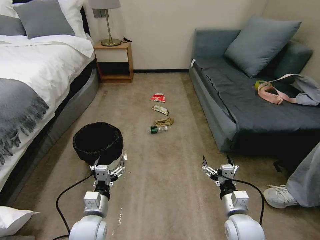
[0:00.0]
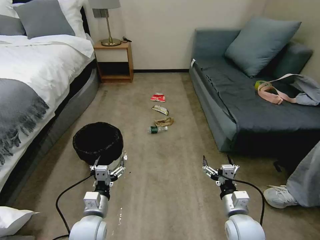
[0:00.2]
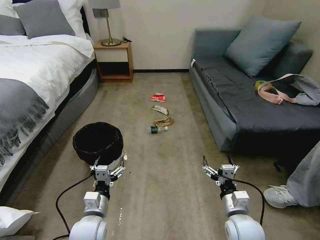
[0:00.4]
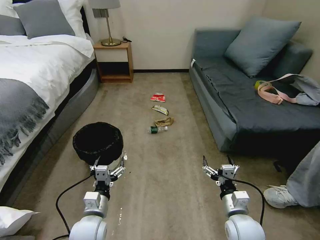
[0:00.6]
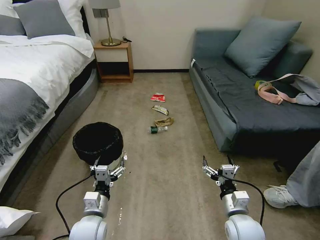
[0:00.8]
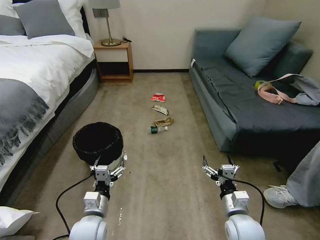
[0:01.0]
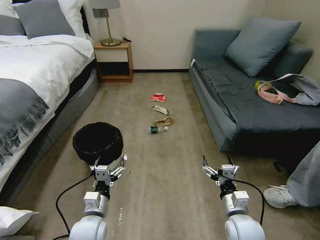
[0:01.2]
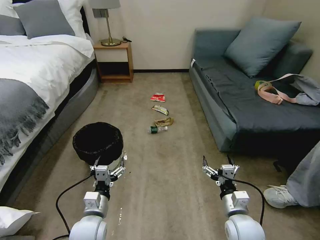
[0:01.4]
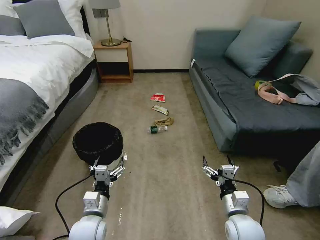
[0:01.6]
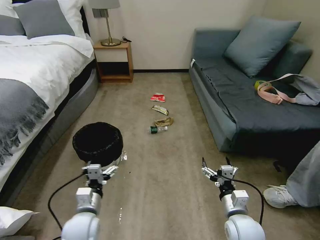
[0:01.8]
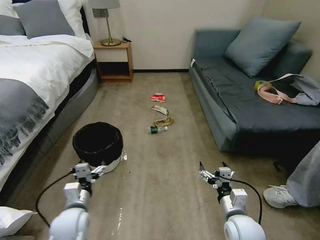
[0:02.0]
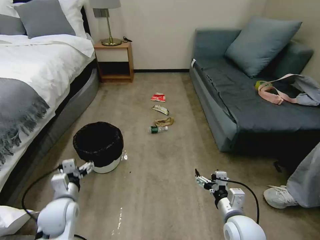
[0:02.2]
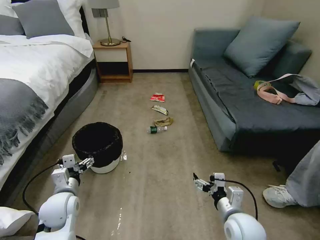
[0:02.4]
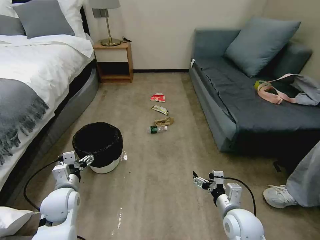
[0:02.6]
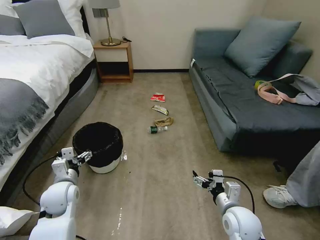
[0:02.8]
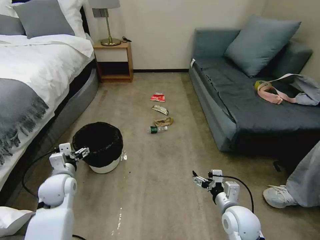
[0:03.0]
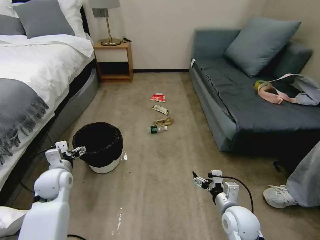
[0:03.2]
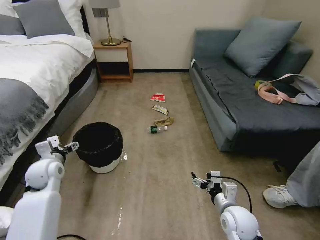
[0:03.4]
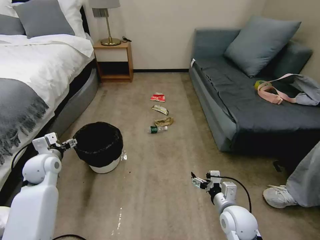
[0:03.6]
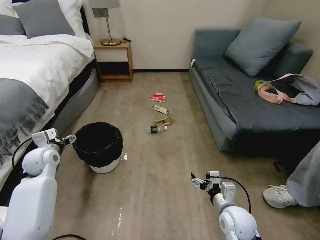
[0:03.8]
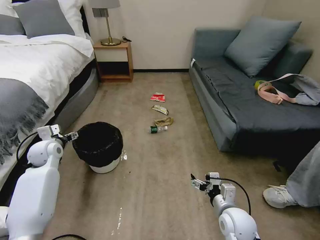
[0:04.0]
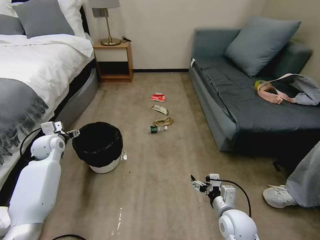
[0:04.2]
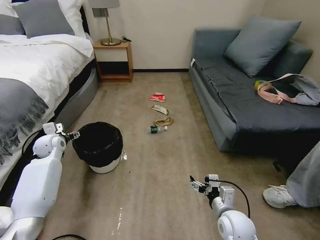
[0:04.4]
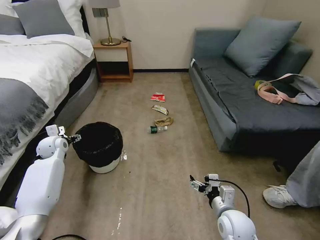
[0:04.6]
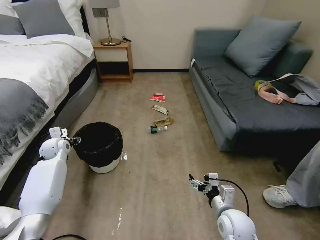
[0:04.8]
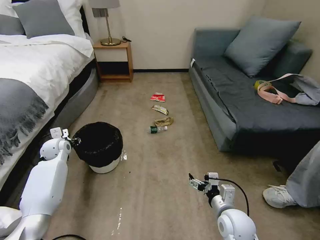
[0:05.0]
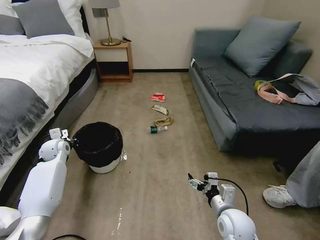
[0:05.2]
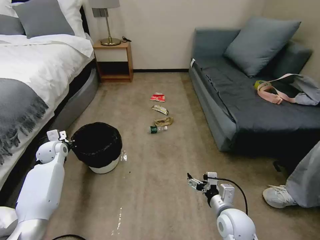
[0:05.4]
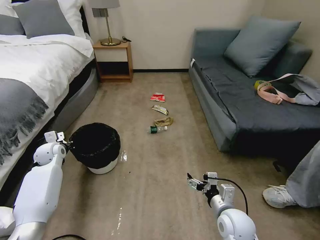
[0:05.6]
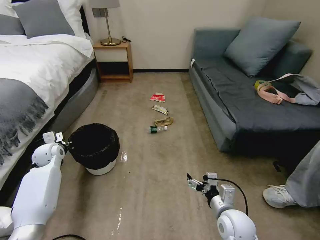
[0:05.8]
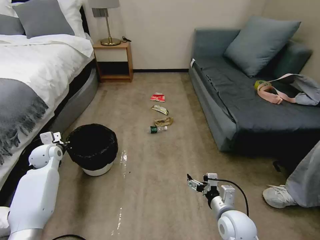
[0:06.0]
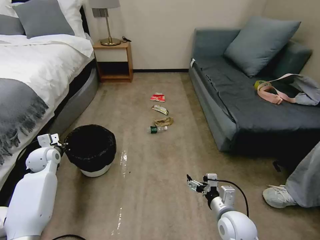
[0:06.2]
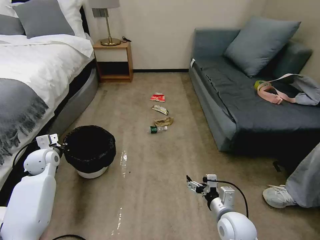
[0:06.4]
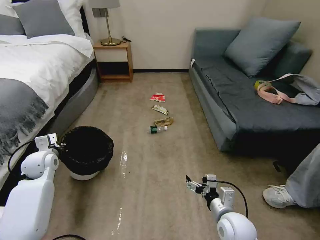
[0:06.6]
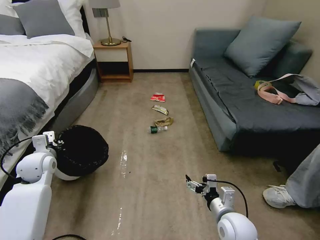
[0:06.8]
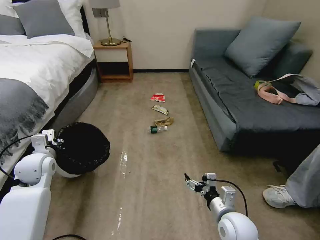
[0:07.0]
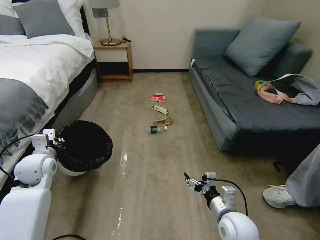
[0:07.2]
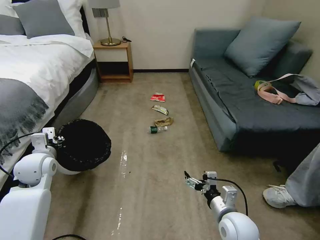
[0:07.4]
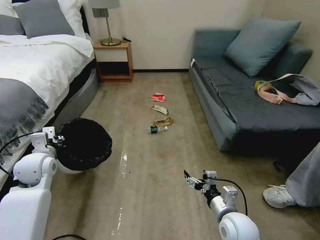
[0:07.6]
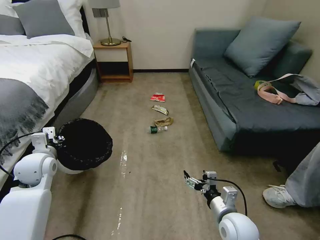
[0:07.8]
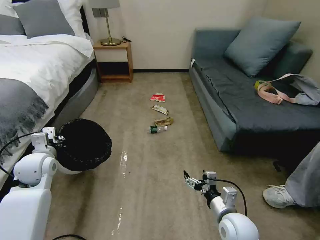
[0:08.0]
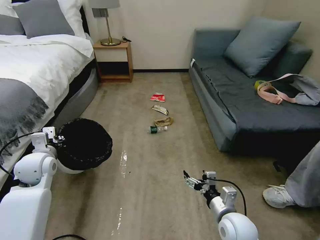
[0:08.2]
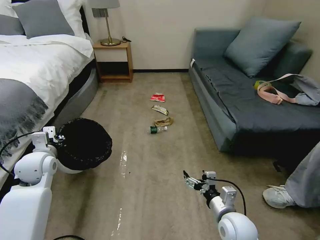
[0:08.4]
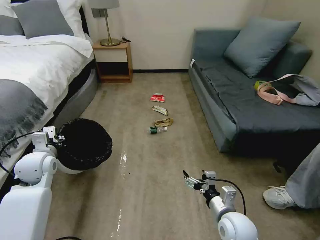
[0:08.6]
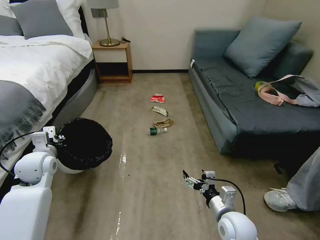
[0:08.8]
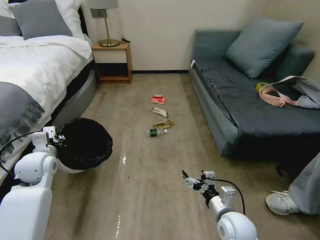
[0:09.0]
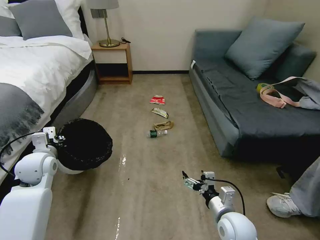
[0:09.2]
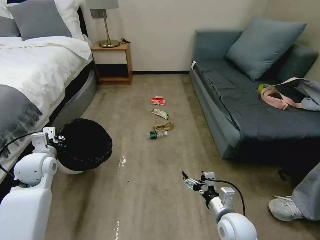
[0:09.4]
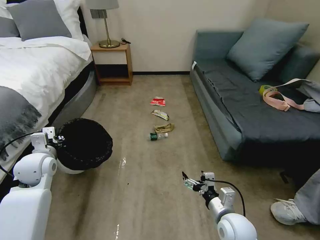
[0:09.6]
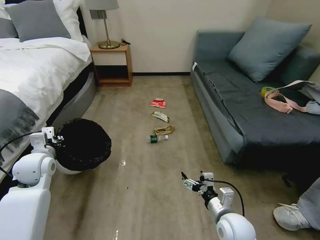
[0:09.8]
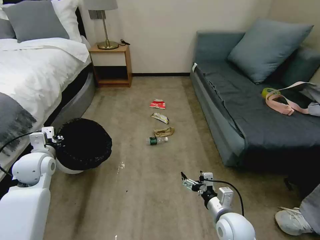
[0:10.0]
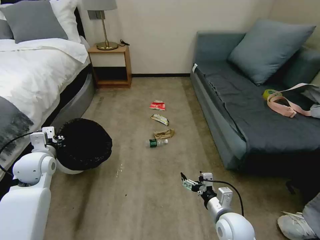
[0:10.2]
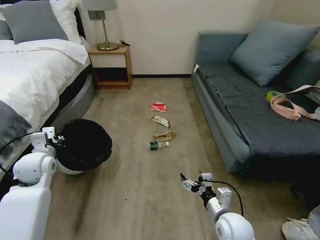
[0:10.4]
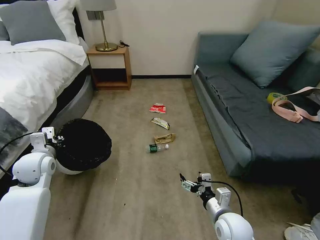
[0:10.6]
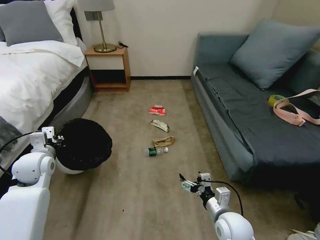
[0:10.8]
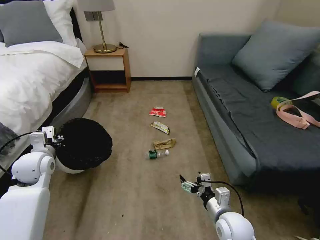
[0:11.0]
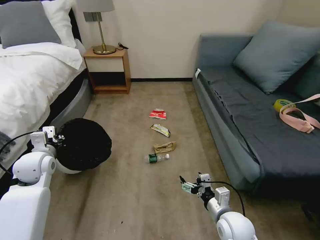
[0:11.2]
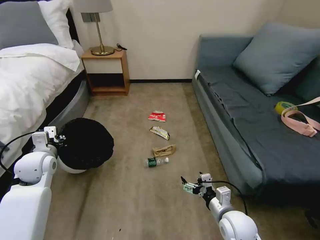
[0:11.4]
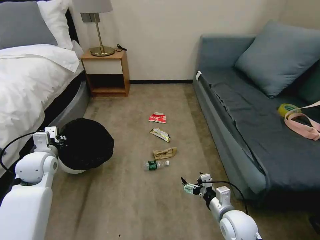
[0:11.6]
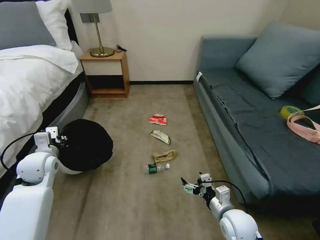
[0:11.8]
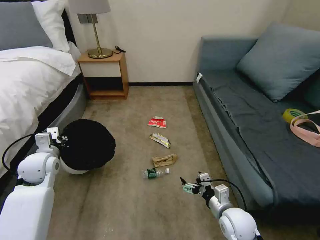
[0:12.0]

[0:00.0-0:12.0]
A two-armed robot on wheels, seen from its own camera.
Task of the whole recording: Pick up the trash bin, then pick up the garbage on the floor and place it into the trash bin.
0:01.6 to 0:03.0: The left gripper is displaced to the left, forward and upward by roughly 15 cm.
0:03.0 to 0:04.4: The left gripper heads forward and to the left, covering about 20 cm.
0:04.4 to 0:06.0: The left gripper closes its fingers.
0:06.0 to 0:07.6: The left gripper shifts some 10 cm backward, upward and to the right.
0:07.6 to 0:09.0: Both grippers stay put.

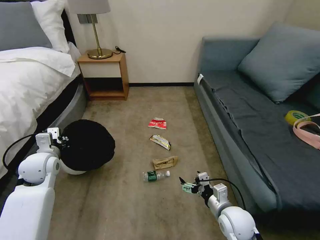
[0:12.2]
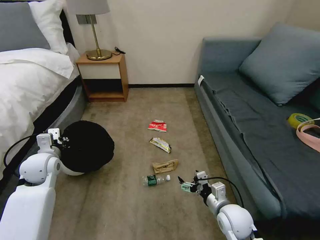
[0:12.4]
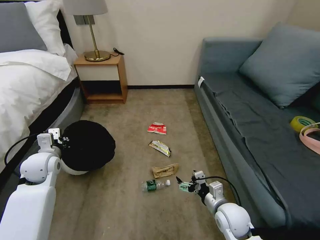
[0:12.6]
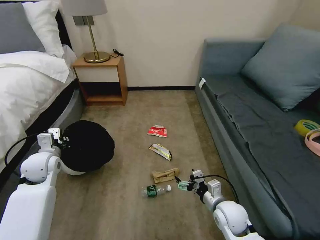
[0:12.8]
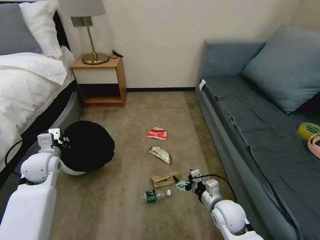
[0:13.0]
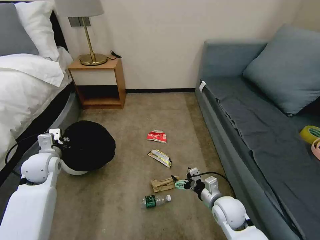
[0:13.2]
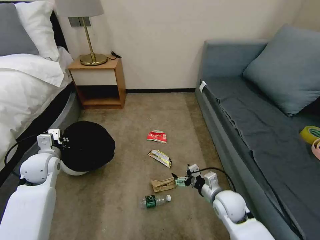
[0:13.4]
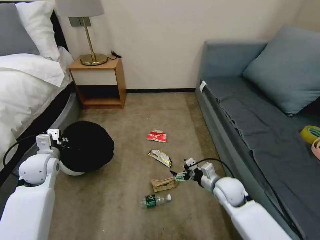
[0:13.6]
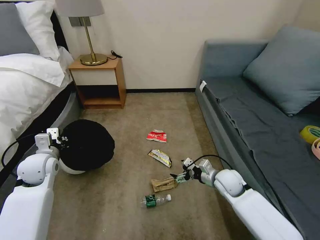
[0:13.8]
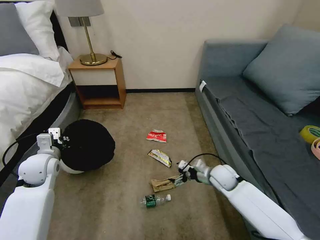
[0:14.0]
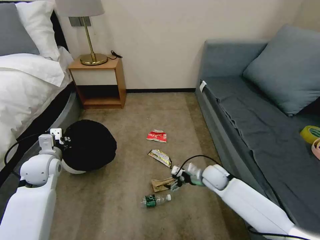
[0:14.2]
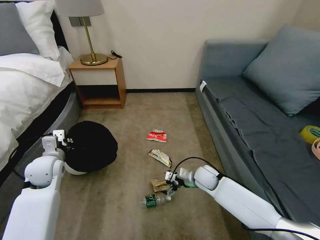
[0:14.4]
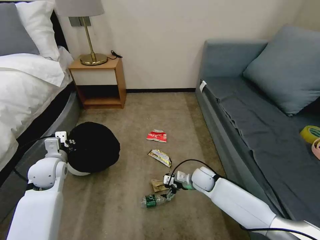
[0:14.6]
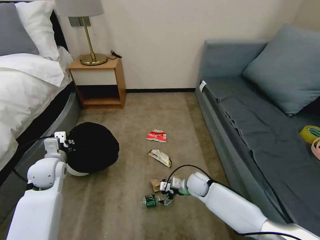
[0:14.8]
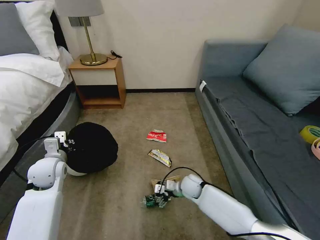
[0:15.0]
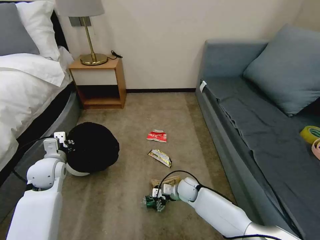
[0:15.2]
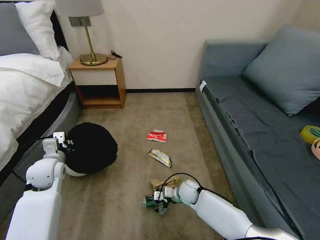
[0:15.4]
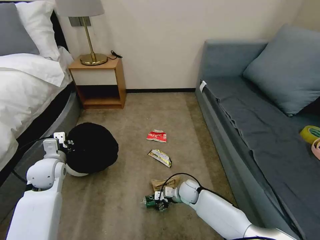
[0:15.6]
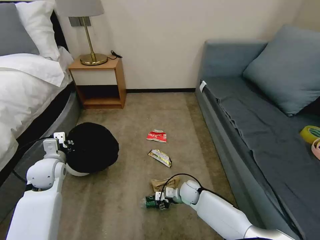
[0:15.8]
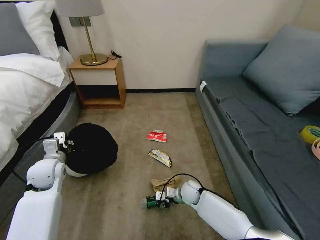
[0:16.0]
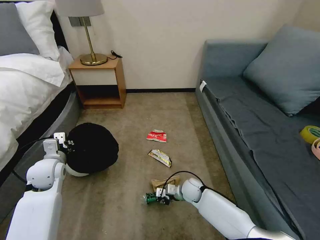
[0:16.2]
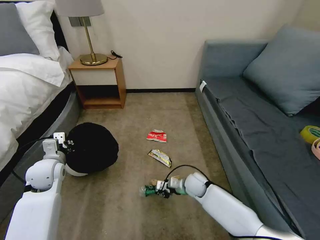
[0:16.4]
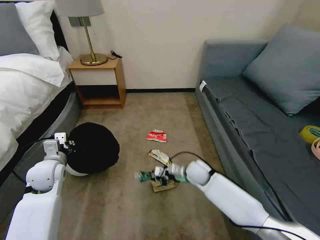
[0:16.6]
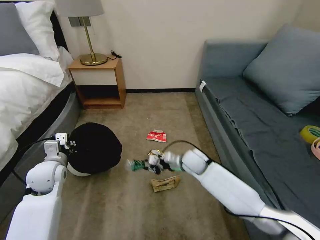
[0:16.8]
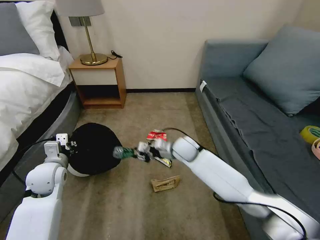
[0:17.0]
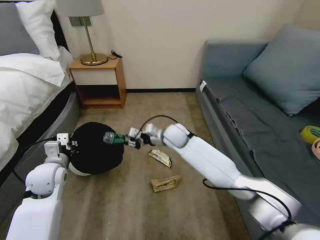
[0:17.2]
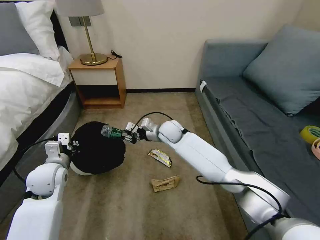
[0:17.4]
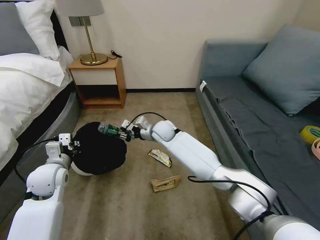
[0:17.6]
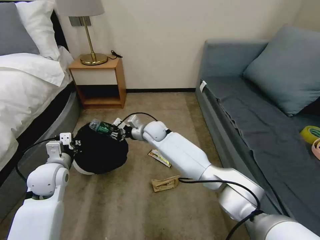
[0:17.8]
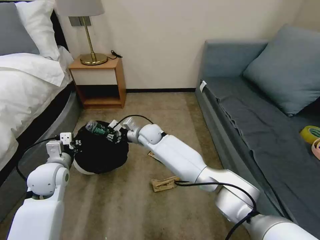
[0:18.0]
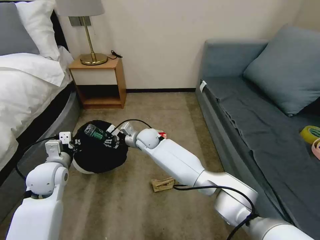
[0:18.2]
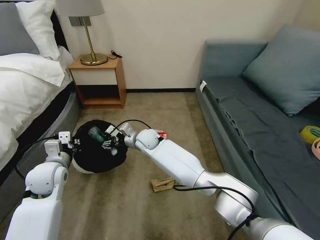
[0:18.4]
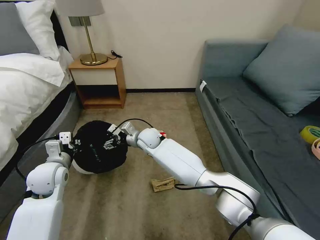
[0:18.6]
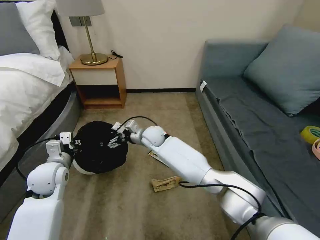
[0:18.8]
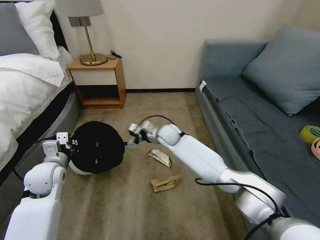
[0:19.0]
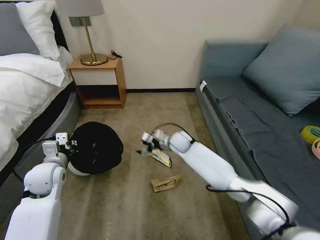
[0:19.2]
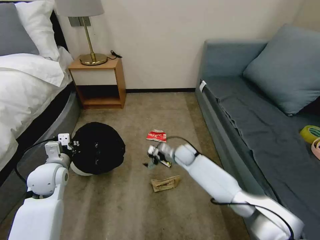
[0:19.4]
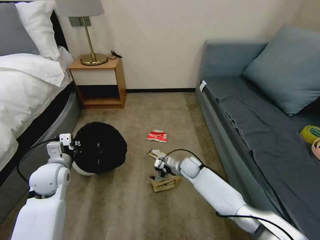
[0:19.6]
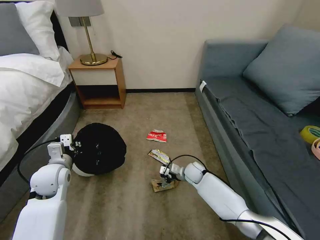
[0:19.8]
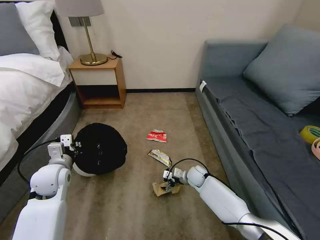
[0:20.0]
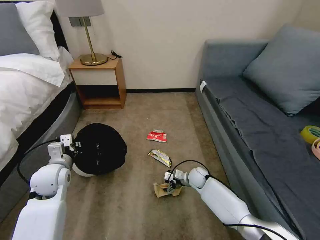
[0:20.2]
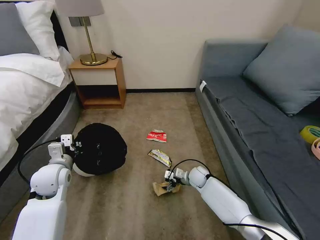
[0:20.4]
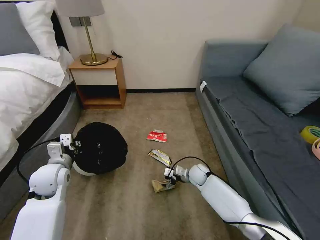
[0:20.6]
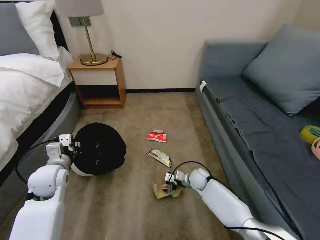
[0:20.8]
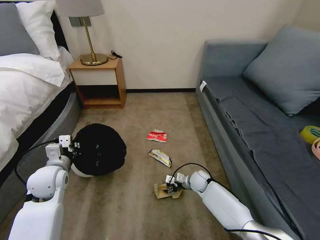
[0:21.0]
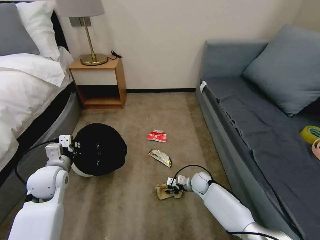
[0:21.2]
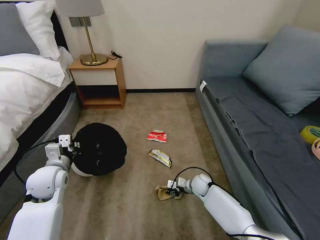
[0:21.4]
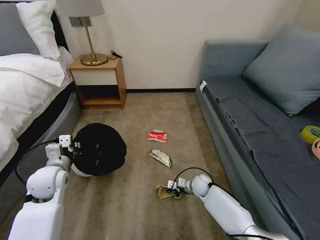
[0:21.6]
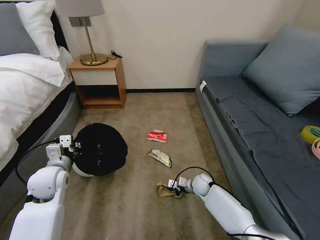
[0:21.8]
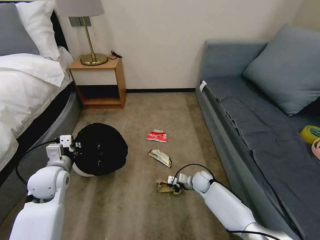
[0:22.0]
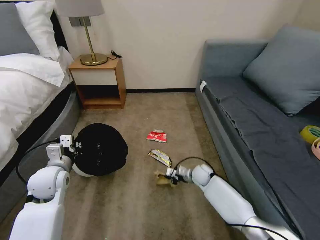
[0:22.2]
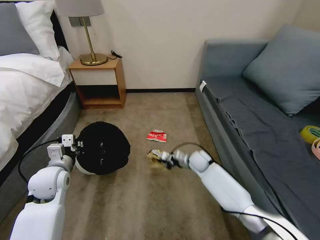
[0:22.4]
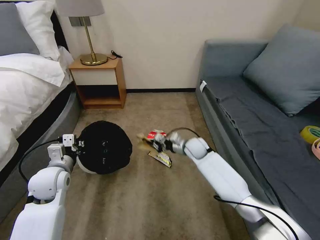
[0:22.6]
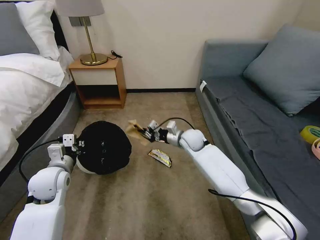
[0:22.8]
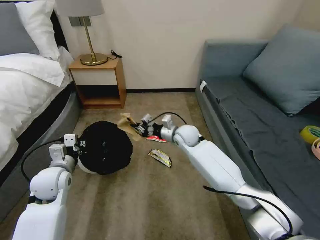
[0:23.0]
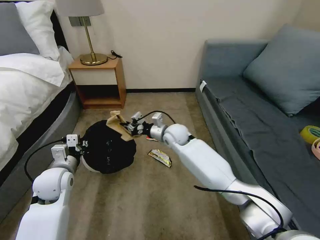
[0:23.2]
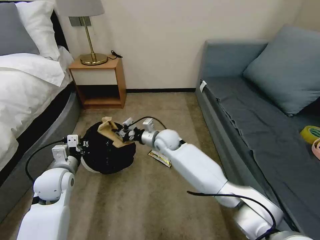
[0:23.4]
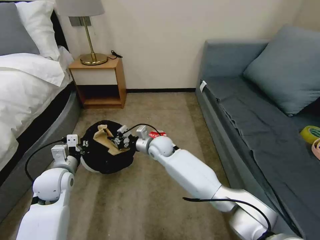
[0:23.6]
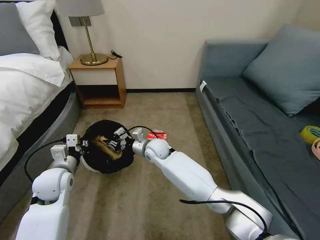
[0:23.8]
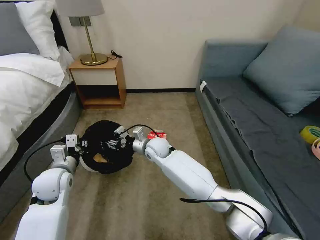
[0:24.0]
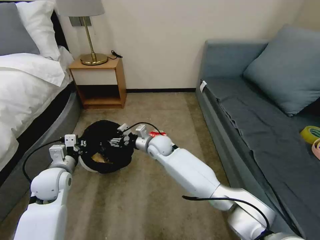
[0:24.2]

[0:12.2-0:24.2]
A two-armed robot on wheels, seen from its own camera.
Task of the whole recording: Pick up the trash bin, then pick up the garbage on the floor and place it into the trash bin.
0:12.2 to 0:13.8: The right gripper moves forward, some 15 cm.
0:13.8 to 0:15.2: The right gripper shifts approximately 15 cm to the left and downward.
0:15.2 to 0:16.6: The right gripper moves upward, roughly 10 cm, and closes up.
0:16.6 to 0:18.2: The right gripper travels to the left, forward and upward by some 25 cm.
0:18.2 to 0:19.8: The right gripper goes roughly 25 cm to the right and downward, and opens.
0:19.8 to 0:21.2: The right gripper changes place by approximately 5 cm, and closes.
0:21.2 to 0:22.6: The right gripper is displaced upward and forward by approximately 20 cm, and closes up.
0:22.6 to 0:24.2: The right gripper travels to the left by some 15 cm, and opens.
